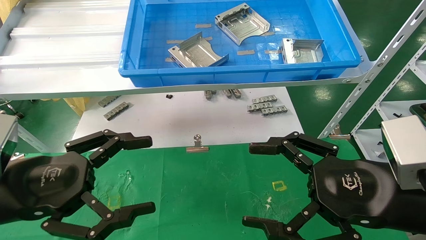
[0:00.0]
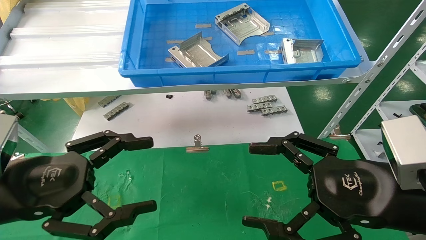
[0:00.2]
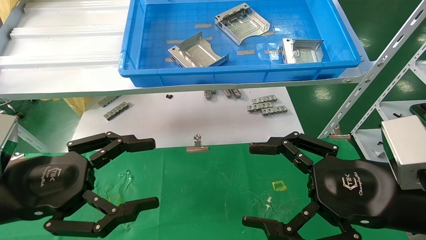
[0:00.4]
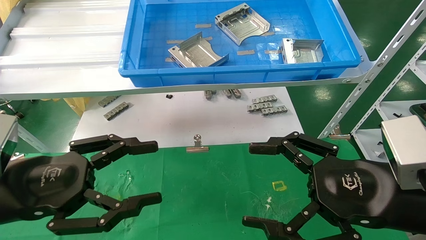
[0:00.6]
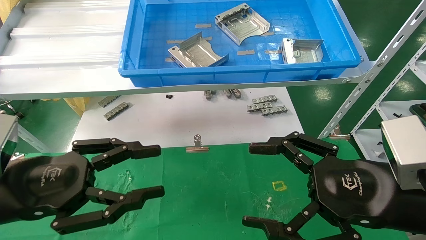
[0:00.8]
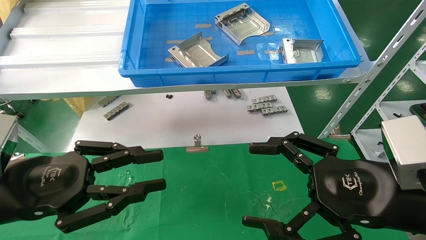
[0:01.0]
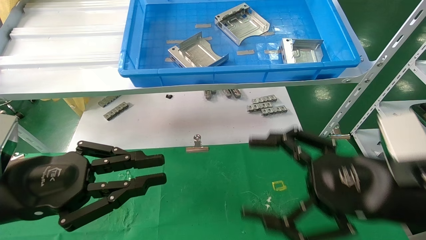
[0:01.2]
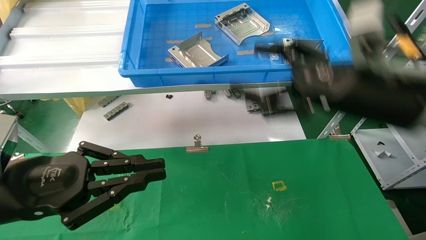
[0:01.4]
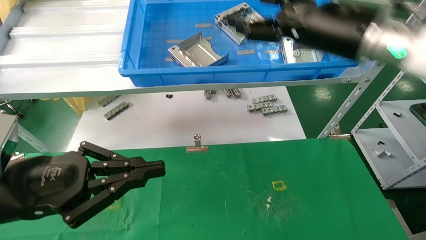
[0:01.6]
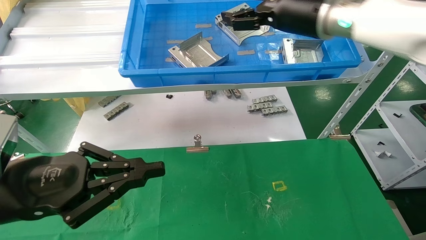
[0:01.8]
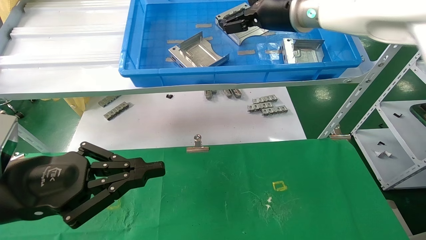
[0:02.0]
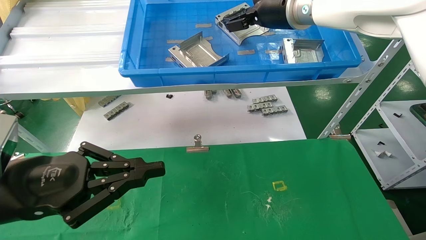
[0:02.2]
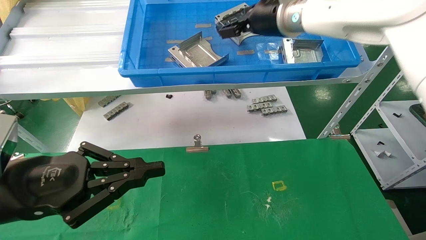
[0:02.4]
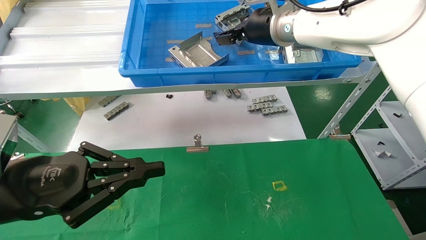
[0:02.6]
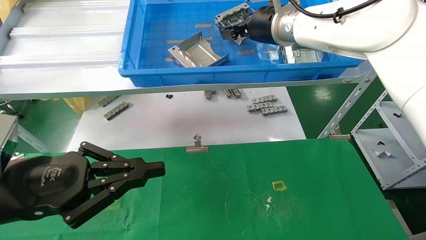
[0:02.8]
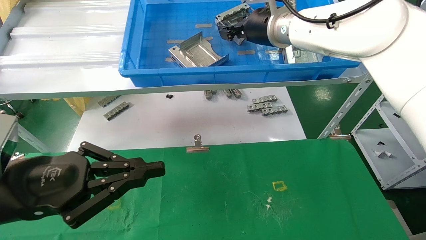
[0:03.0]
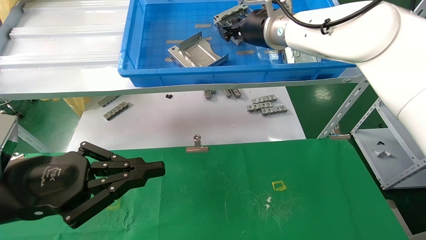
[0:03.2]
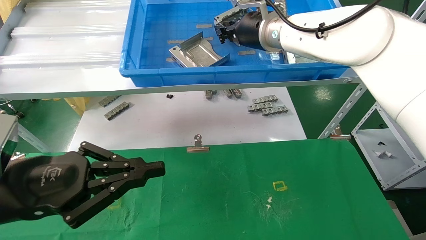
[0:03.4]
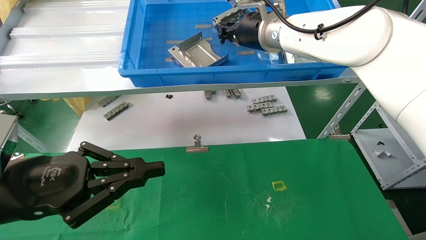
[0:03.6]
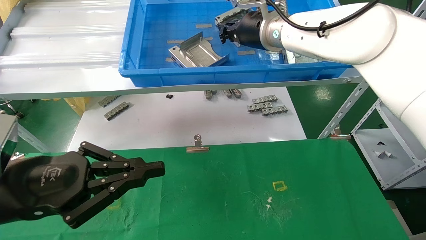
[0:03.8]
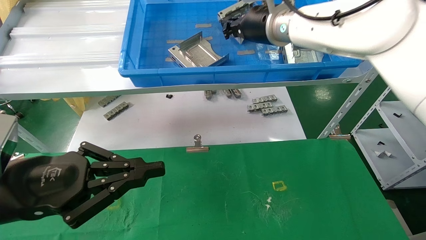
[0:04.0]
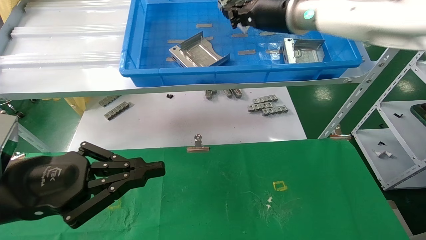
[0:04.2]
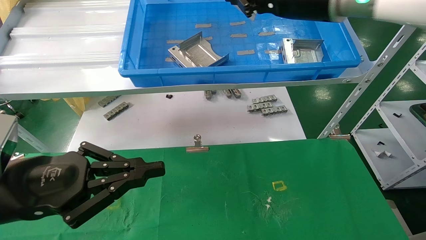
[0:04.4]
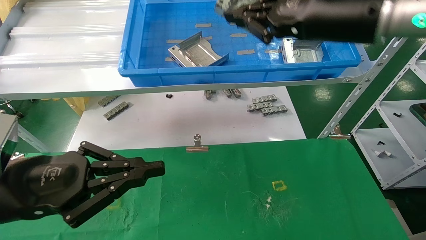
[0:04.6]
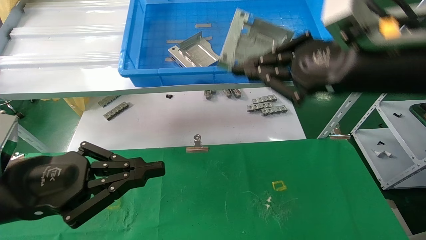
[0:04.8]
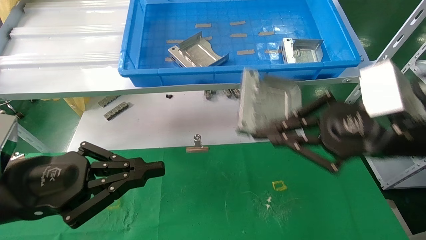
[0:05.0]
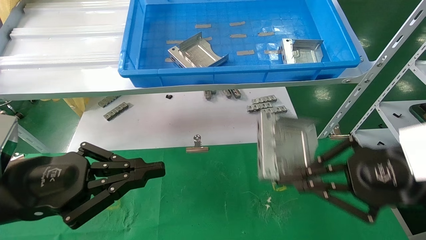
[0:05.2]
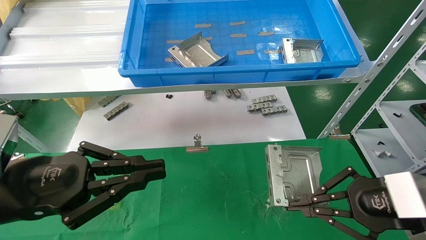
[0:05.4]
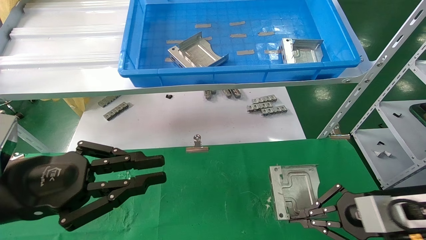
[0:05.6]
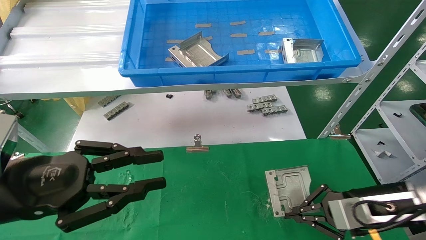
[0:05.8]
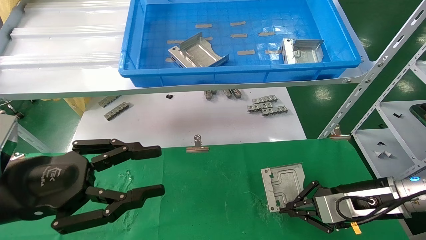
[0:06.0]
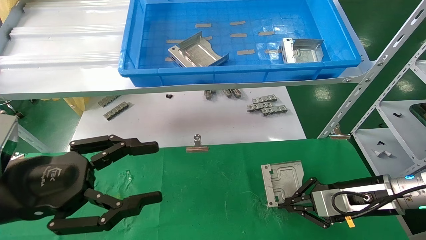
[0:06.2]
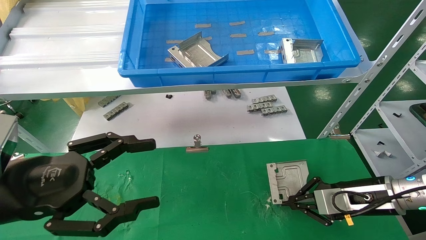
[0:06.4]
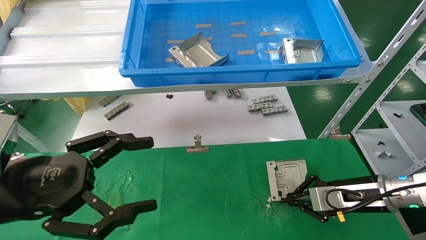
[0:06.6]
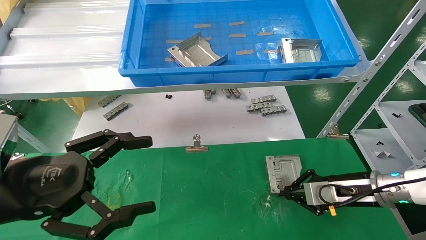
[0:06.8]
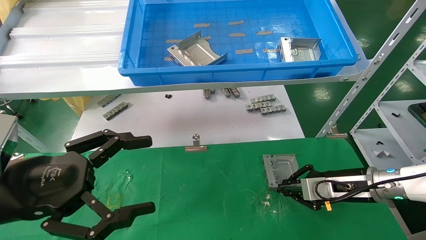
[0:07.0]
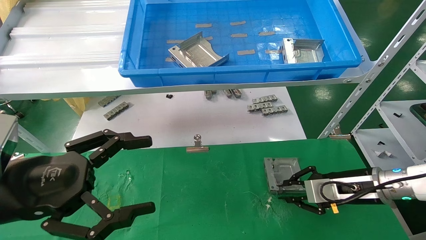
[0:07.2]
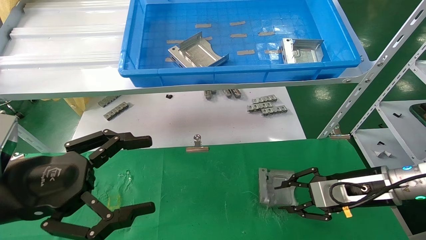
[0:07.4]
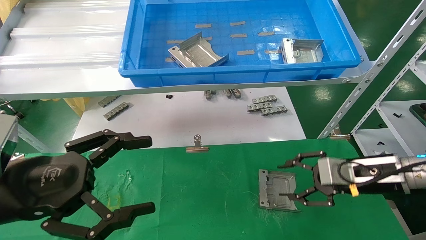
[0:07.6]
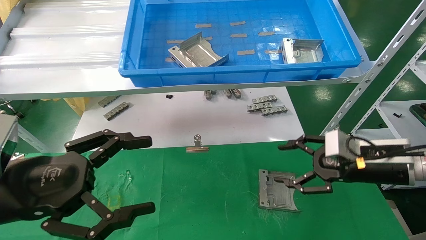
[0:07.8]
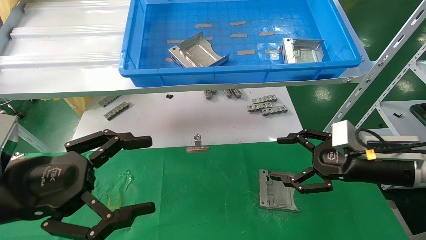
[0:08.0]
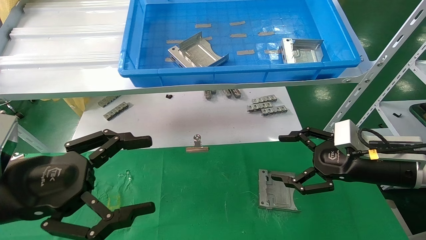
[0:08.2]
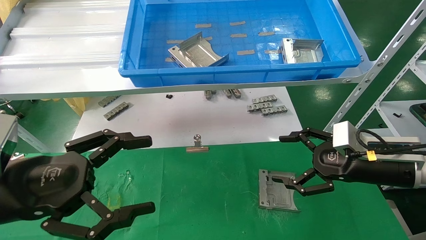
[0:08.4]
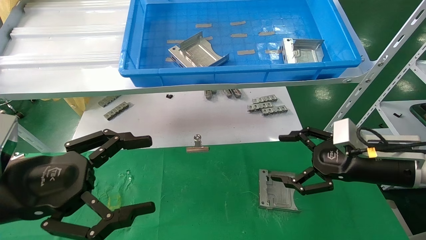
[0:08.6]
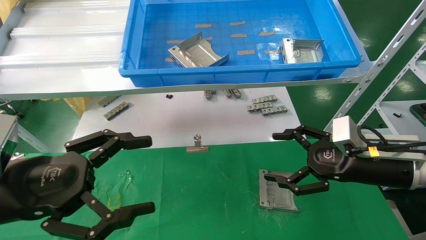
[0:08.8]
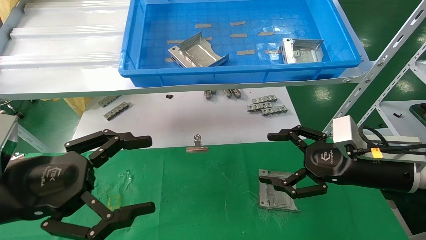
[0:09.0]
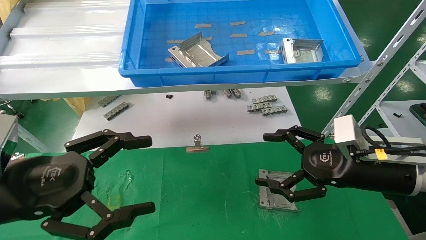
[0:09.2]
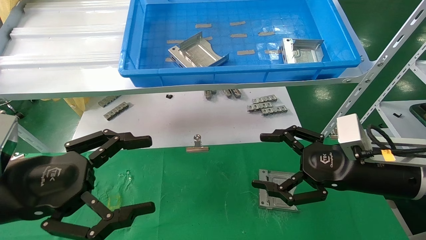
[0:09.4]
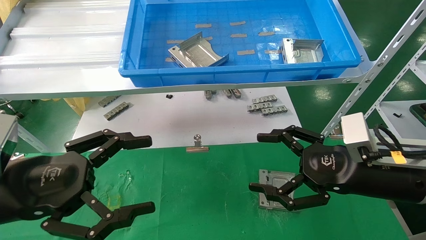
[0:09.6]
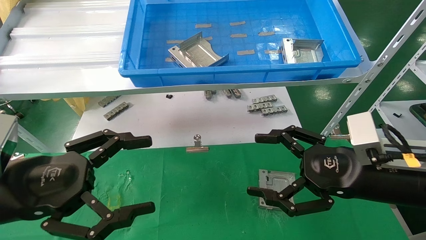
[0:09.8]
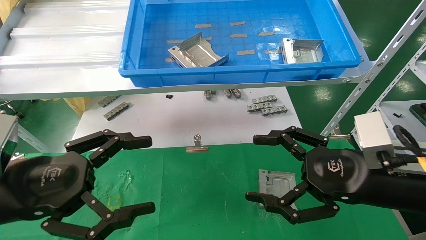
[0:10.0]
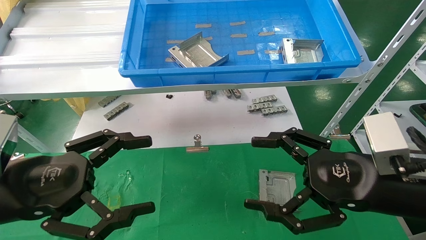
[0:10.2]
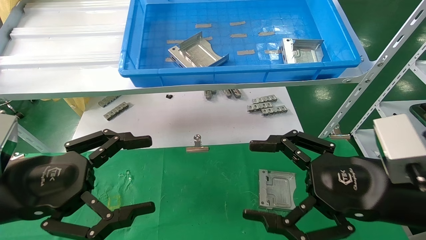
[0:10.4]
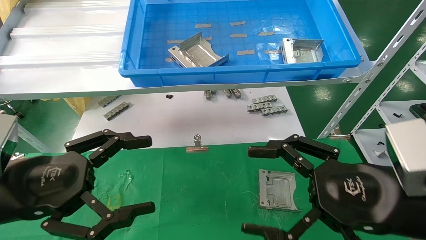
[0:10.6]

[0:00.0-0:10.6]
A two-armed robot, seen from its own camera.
Task of the whole recording: use the mechanical arm to pick up the parts and place them on the table.
Step, 0:01.4 to 0:04.6: Pick up the hard drive bracket from the feeding area.
Step, 0:04.8 to 0:07.2: Place the hard drive bracket into the box.
0:00.0 to 0:01.6: The right gripper heads upward and forward, covering some 25 cm. The left gripper closes.
0:01.6 to 0:03.0: The right gripper shifts approximately 15 cm forward and to the left, and closes its fingers.
0:03.0 to 0:04.6: The right gripper travels backward and to the right by roughly 15 cm, and closes its fingers.
0:04.6 to 0:06.0: The right gripper goes approximately 30 cm downward and to the right.
0:06.0 to 0:07.6: The left gripper opens; the right gripper opens its fingers.
0:07.6 to 0:09.0: The right gripper ends up some 5 cm from where it was, and opens.
0:09.0 to 0:10.6: The right gripper is displaced backward by approximately 10 cm.
